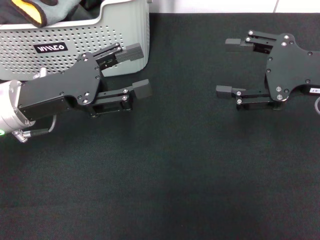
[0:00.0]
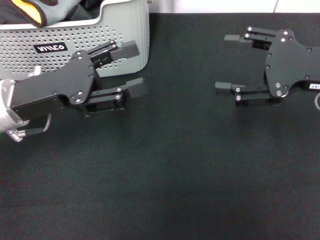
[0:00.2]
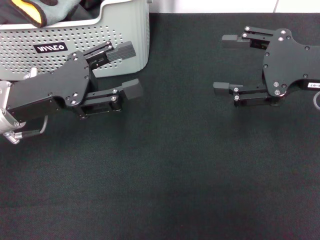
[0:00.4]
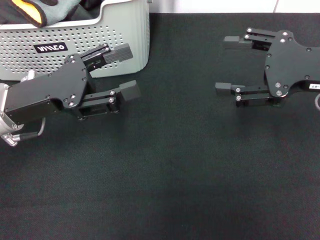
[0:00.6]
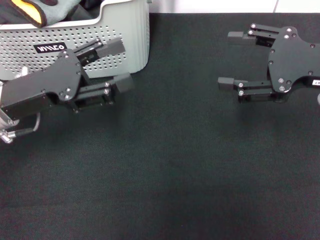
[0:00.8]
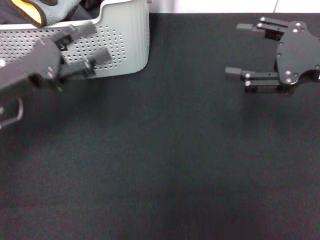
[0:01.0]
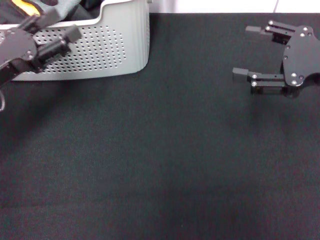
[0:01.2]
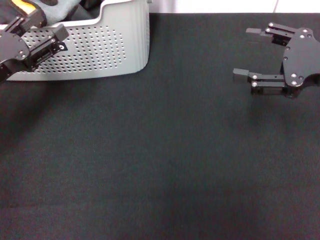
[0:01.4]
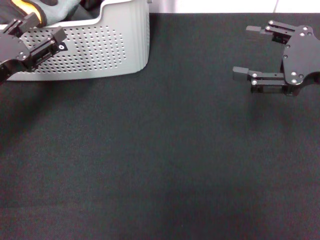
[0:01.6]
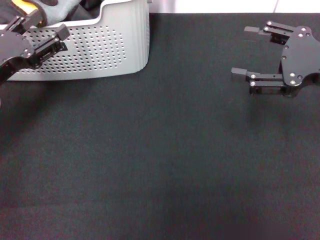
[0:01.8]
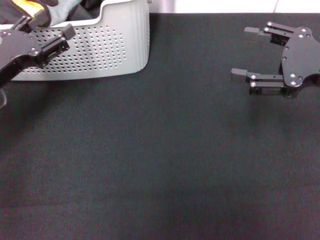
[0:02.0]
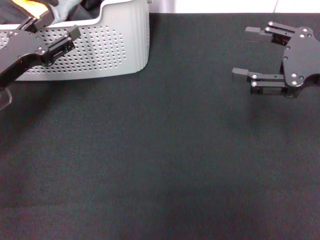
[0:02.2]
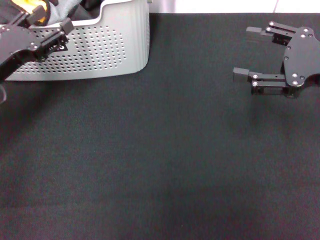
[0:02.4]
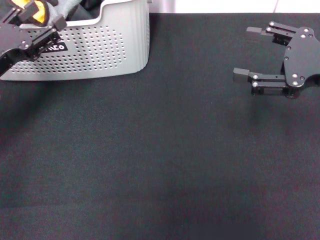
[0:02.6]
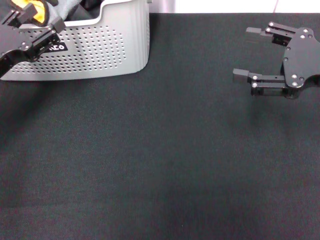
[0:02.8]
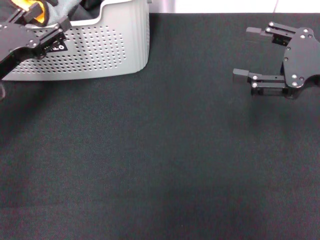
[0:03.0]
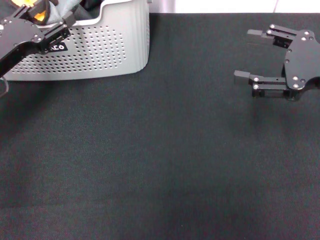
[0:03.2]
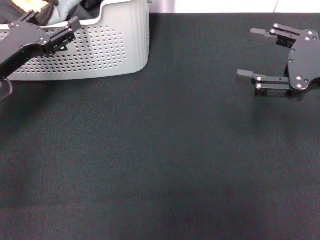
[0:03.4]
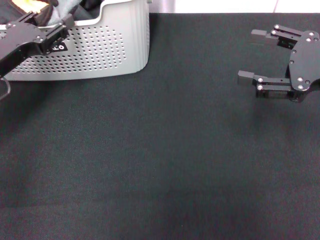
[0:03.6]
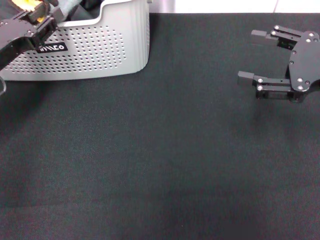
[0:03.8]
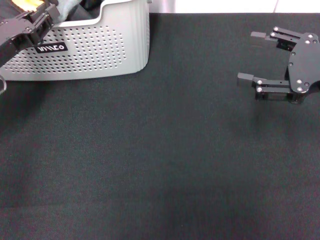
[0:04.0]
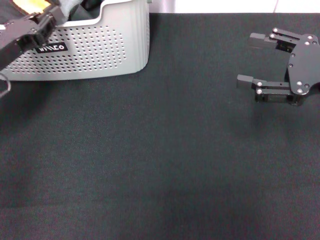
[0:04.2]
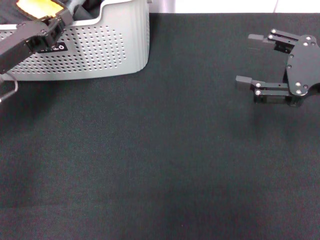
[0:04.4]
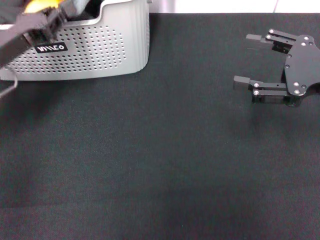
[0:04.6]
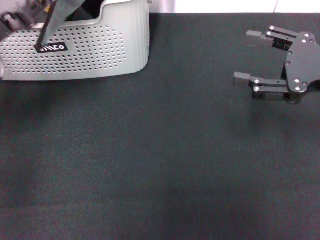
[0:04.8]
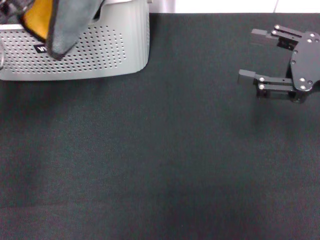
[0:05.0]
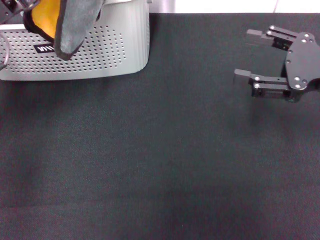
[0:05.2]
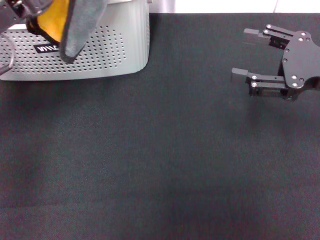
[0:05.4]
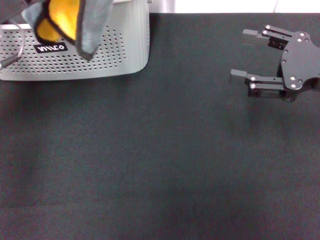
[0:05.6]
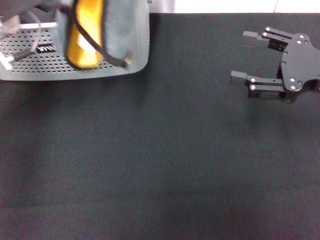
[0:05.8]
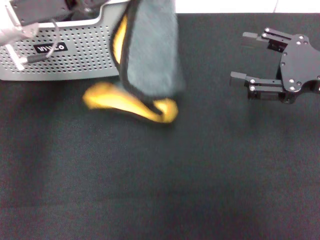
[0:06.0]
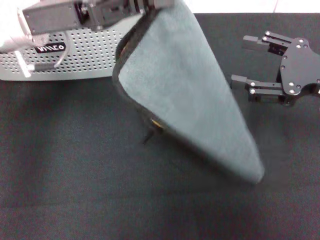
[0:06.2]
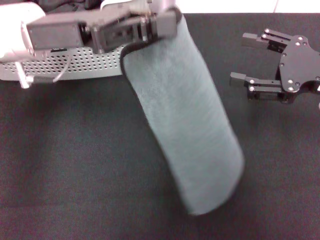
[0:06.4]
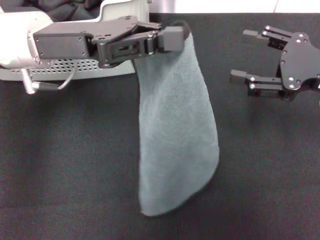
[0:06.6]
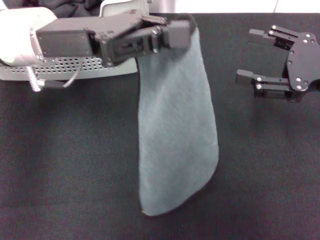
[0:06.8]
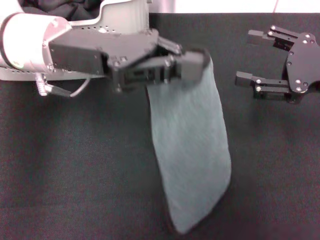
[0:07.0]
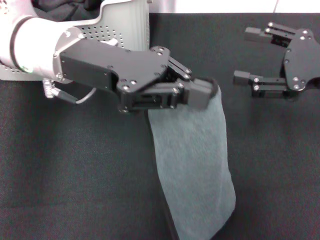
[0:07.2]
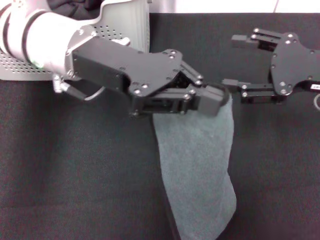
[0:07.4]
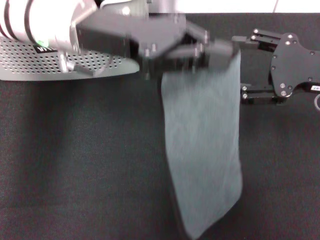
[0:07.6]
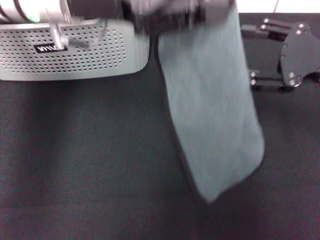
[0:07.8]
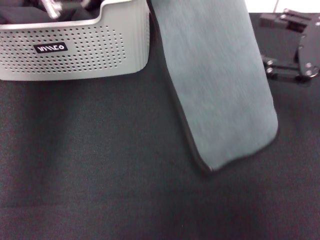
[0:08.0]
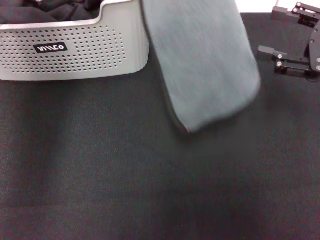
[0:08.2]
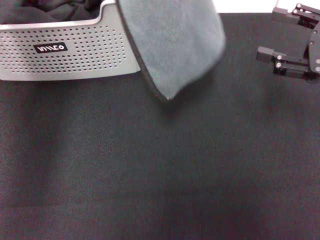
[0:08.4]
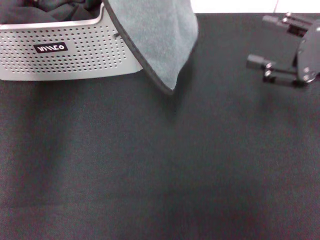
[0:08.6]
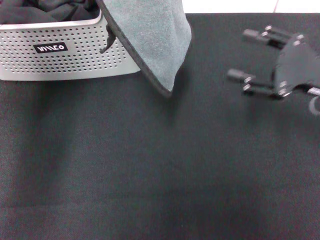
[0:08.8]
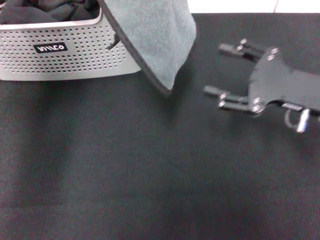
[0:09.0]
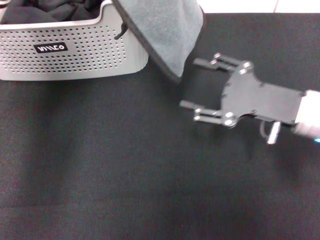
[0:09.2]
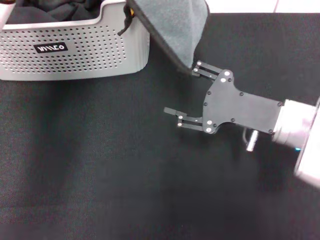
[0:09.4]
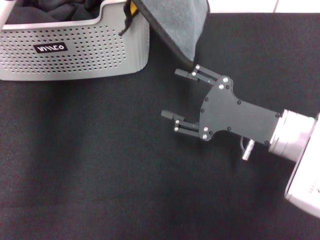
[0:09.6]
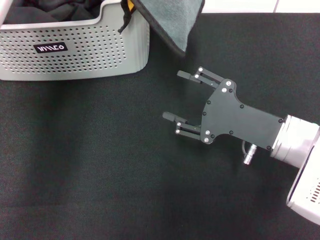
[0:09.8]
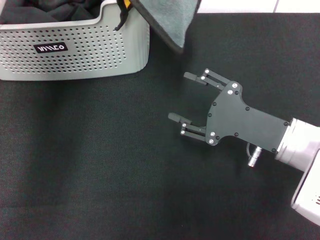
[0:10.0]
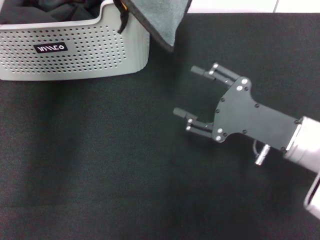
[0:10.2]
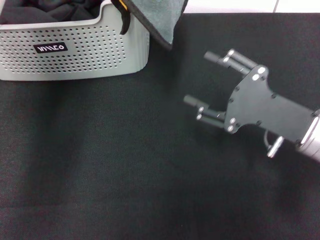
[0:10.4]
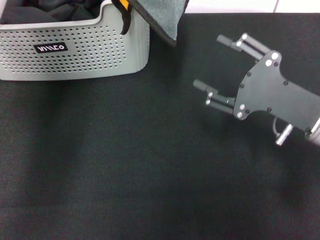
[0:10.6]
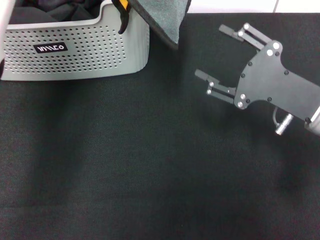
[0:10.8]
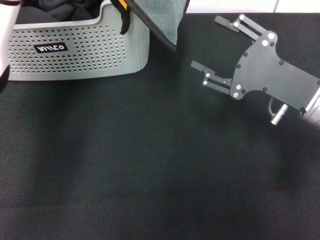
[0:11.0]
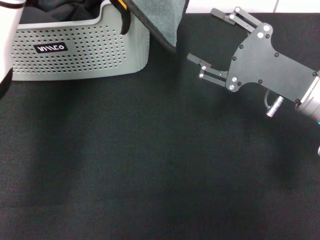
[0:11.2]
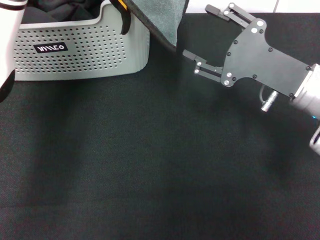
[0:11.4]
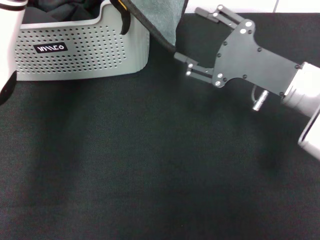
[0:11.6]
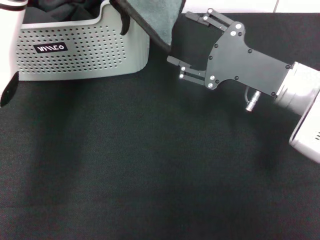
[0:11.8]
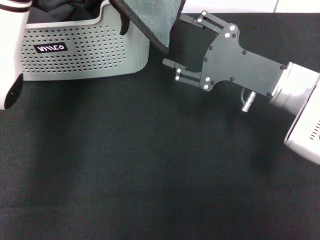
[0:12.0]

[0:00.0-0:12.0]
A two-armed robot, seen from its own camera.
Task of the whole recording: pick up the towel from the storage box and lay it flat on the black tablecloth.
Step, 0:00.0 to 0:04.4: Pick up a towel with the left gripper.
0:00.0 to 0:01.6: The left gripper is displaced to the left by roughly 10 cm.
0:01.6 to 0:03.0: The grippers make only small movements.
0:03.0 to 0:04.4: The left gripper closes.
0:04.4 to 0:06.0: The left gripper shifts some 15 cm upward and to the right.
0:06.0 to 0:07.6: The left gripper moves to the right, approximately 5 cm.
0:07.6 to 0:09.0: The right gripper changes place by roughly 5 cm. The left gripper moves roughly 5 cm.
0:09.0 to 0:10.4: The right gripper shifts by about 5 cm.
0:10.4 to 0:12.0: The right gripper is displaced forward by roughly 5 cm.

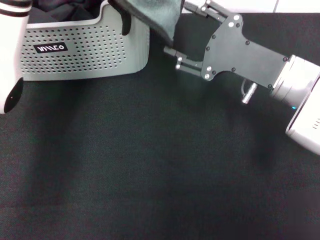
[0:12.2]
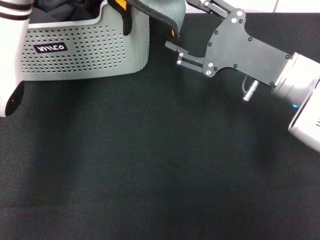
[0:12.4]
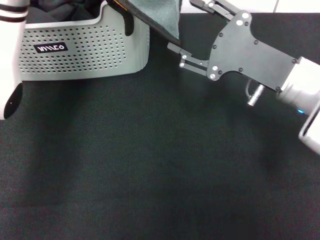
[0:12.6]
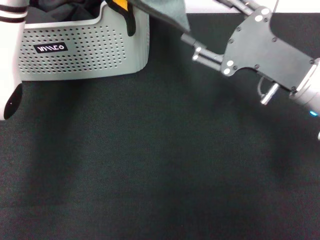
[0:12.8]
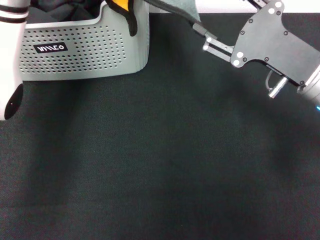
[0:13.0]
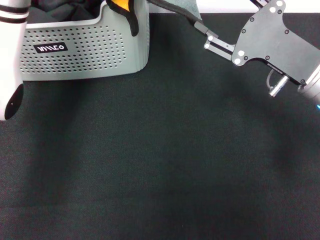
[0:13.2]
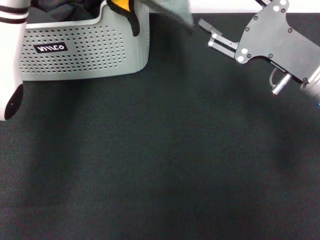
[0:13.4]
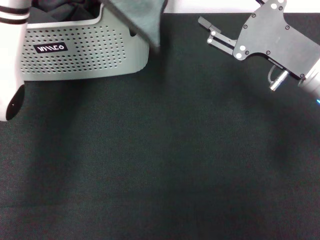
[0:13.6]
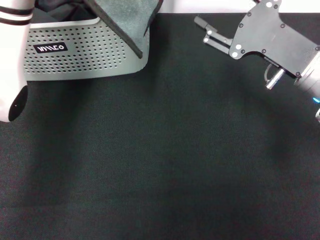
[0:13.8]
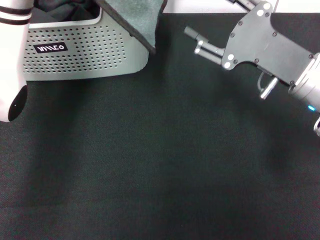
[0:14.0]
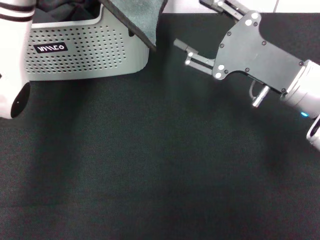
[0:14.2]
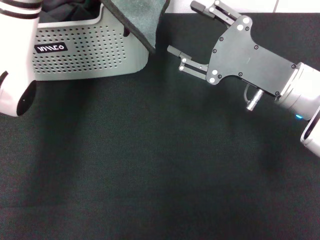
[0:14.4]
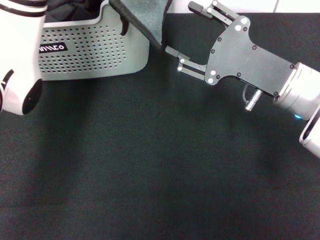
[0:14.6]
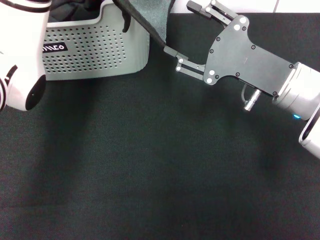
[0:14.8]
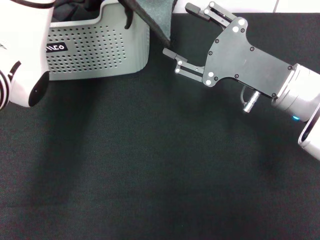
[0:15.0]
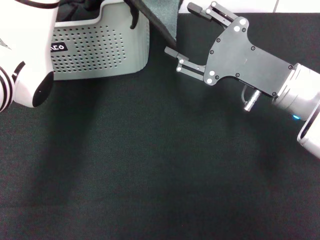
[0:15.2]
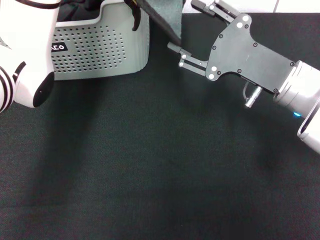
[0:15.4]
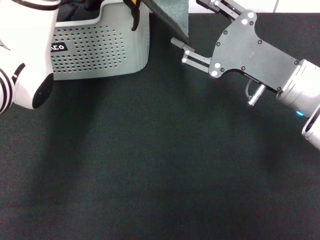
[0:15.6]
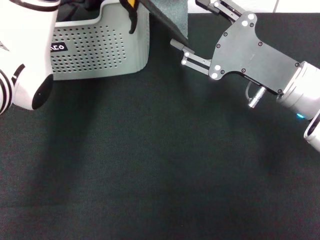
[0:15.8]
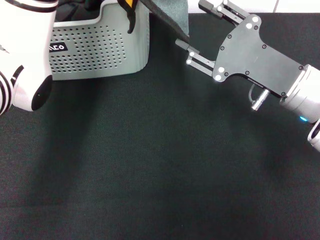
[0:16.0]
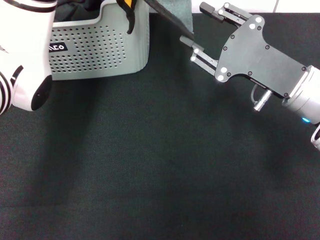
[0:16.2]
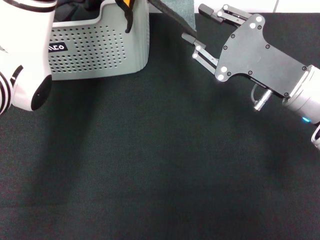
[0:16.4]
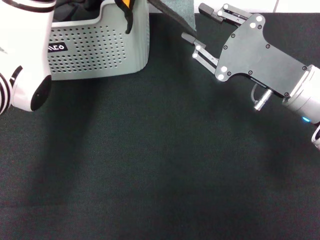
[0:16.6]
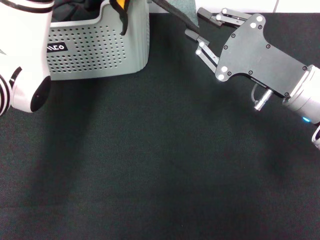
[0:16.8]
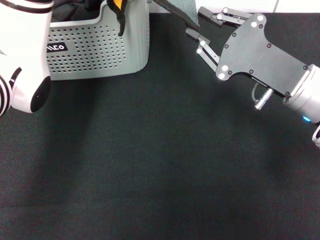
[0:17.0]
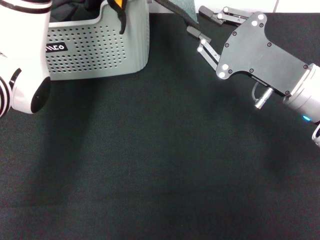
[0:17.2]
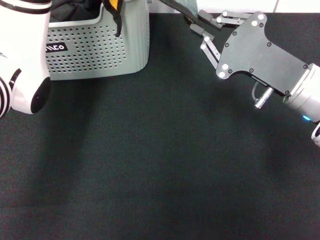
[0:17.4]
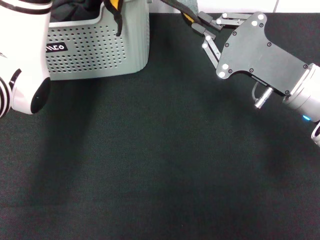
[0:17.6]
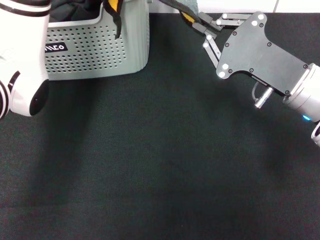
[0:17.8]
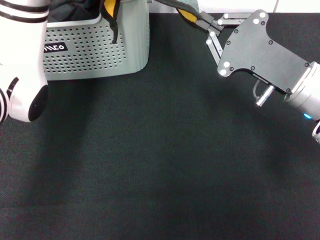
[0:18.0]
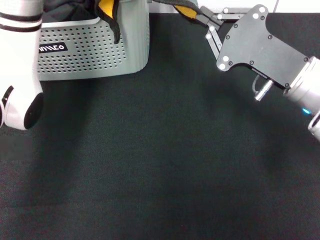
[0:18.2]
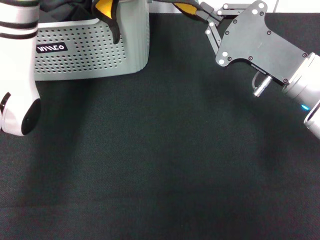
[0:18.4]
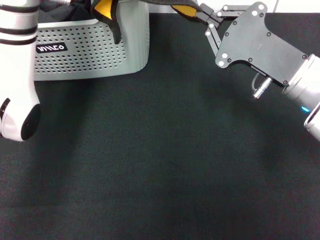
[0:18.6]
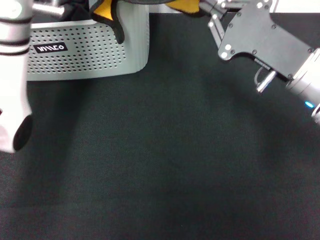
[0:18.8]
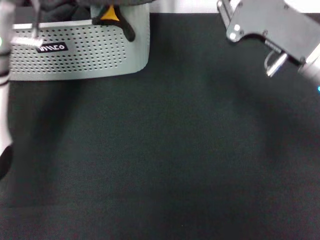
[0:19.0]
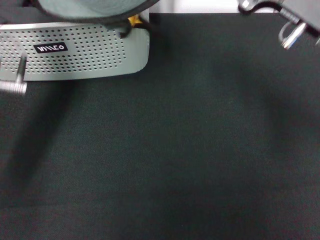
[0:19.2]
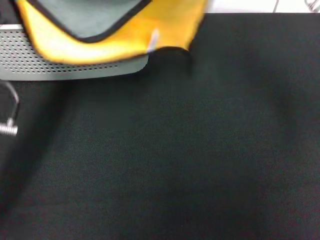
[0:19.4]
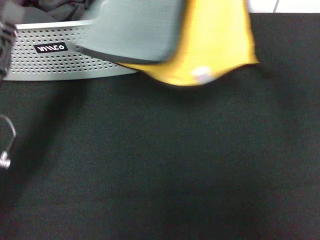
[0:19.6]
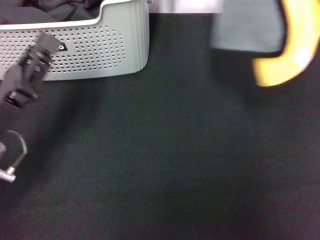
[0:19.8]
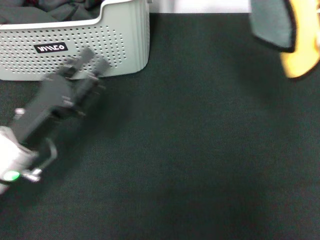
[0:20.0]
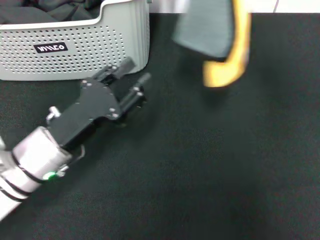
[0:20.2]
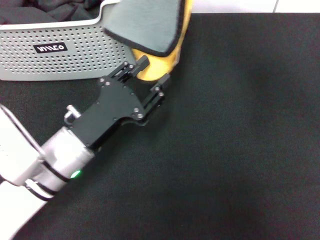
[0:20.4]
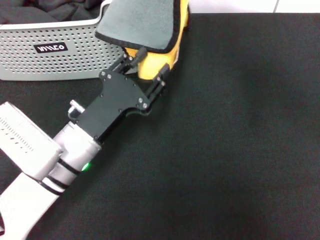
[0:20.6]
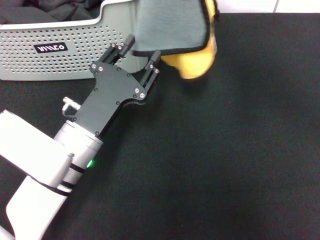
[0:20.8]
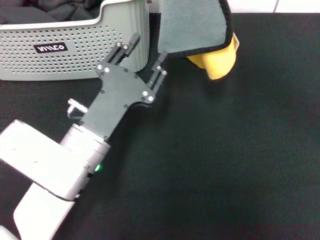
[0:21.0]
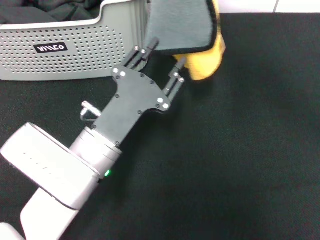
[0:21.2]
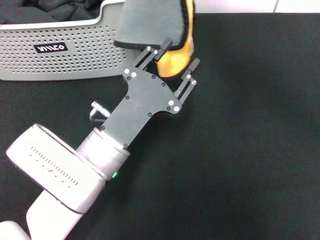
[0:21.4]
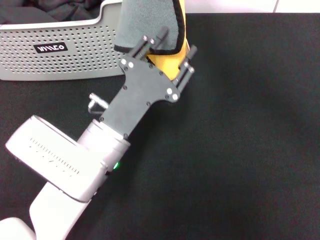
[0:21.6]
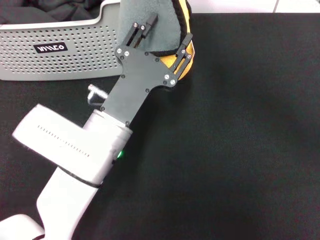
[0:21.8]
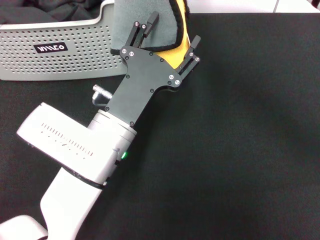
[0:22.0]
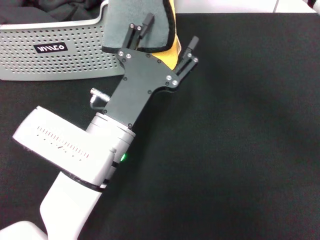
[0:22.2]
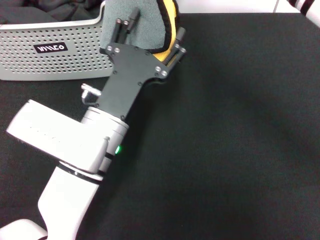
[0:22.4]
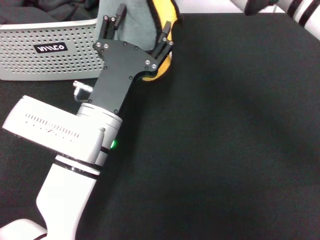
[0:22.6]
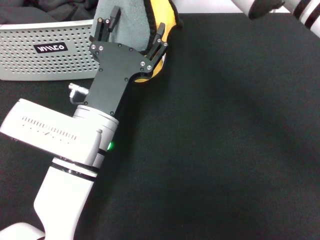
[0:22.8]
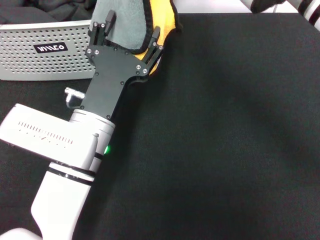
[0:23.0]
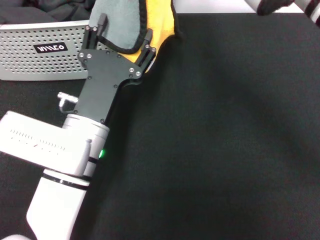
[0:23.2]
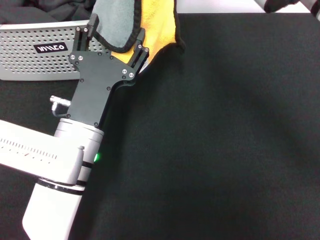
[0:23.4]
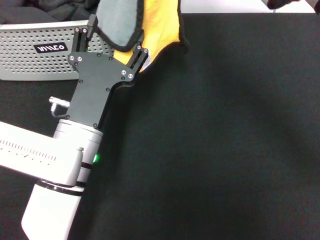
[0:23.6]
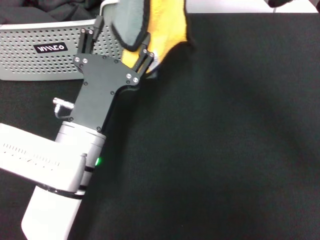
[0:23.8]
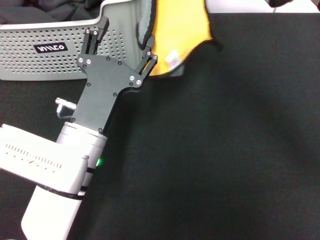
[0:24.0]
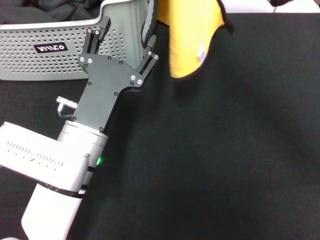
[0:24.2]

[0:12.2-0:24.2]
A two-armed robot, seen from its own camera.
Task of the whole recording: pick up the towel from the storage box and lay it flat on the black tablecloth.
Step, 0:12.2 to 0:18.0: Spread the towel flat with the left gripper.
0:12.2 to 0:13.8: The grippers make only small movements.
0:15.2 to 0:16.6: Both grippers stay about where they are.
0:16.6 to 0:18.2: The right gripper closes.
0:18.2 to 0:19.8: The left gripper shifts about 25 cm backward, downward and to the left. The right gripper is displaced upward by approximately 20 cm.
0:19.8 to 0:21.2: The right gripper heads to the left, covering roughly 5 cm, while the left gripper is displaced to the right by approximately 15 cm, and opens its fingers.
0:21.2 to 0:22.6: The right gripper travels to the left by approximately 5 cm, while the left gripper opens.
